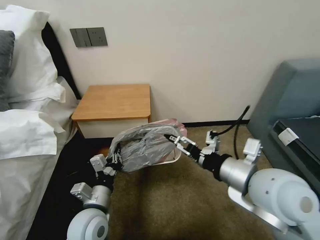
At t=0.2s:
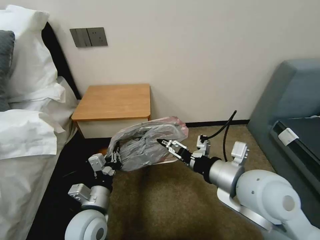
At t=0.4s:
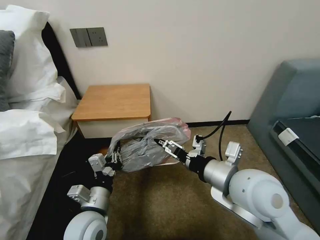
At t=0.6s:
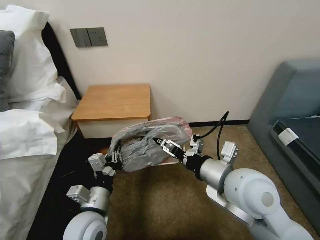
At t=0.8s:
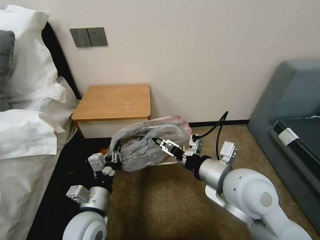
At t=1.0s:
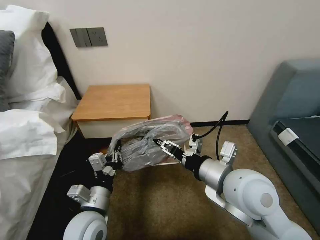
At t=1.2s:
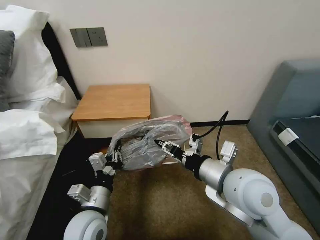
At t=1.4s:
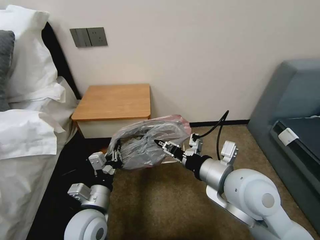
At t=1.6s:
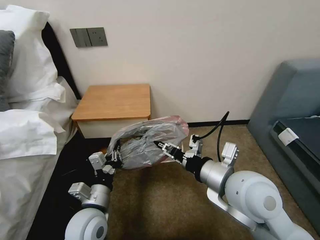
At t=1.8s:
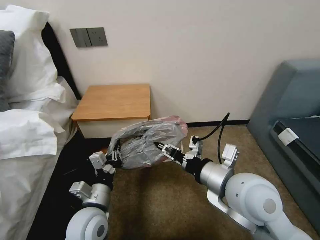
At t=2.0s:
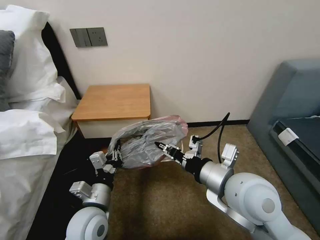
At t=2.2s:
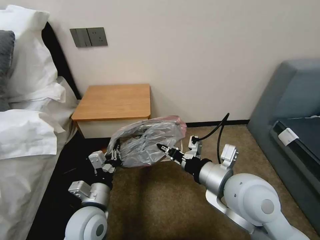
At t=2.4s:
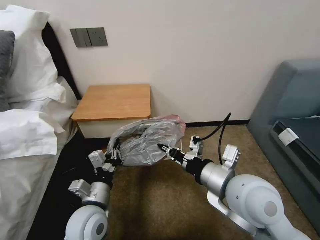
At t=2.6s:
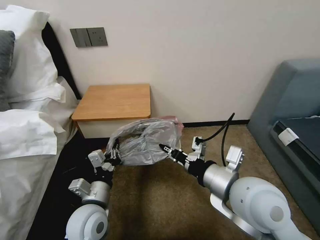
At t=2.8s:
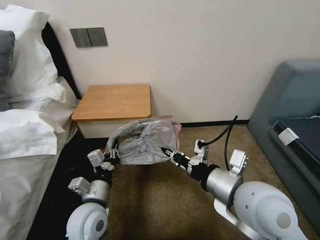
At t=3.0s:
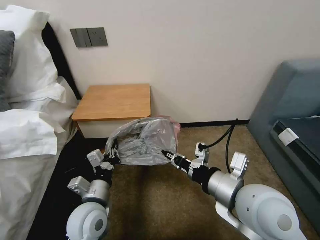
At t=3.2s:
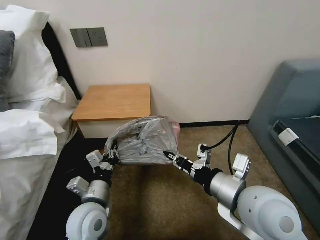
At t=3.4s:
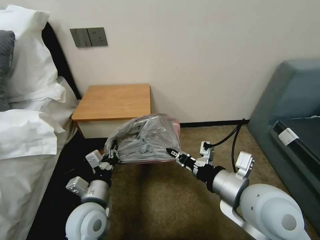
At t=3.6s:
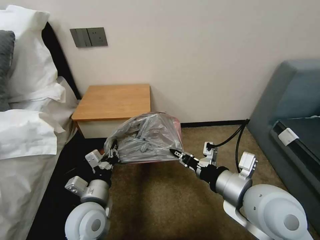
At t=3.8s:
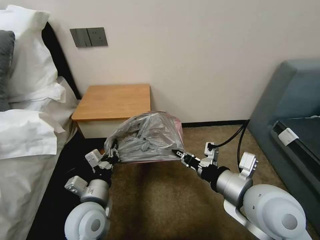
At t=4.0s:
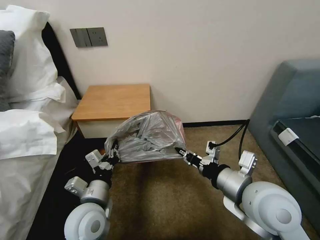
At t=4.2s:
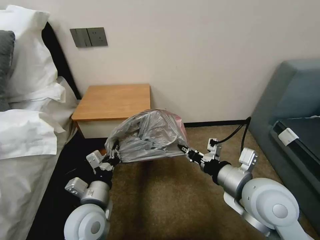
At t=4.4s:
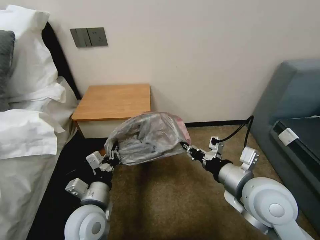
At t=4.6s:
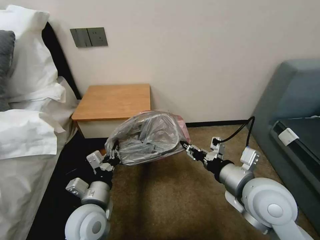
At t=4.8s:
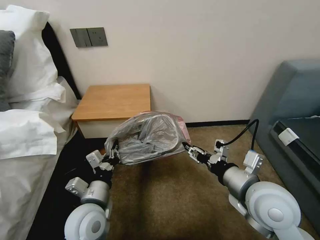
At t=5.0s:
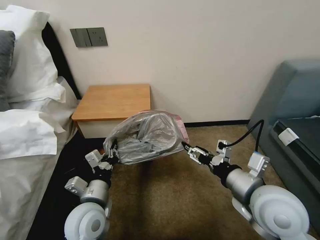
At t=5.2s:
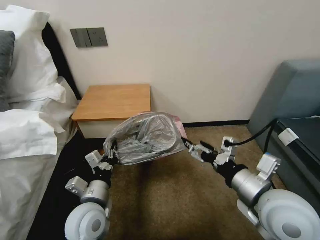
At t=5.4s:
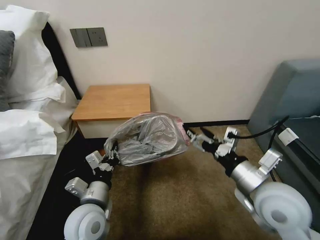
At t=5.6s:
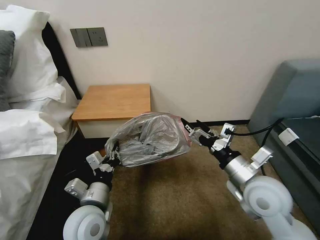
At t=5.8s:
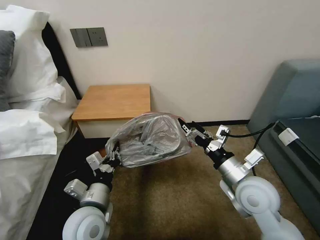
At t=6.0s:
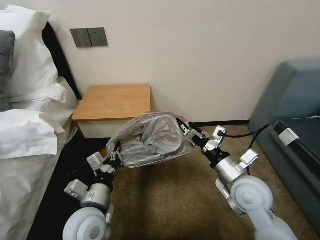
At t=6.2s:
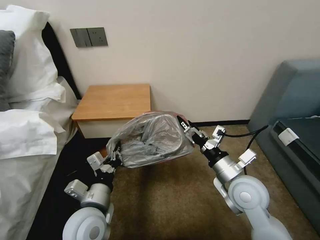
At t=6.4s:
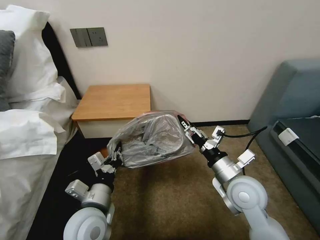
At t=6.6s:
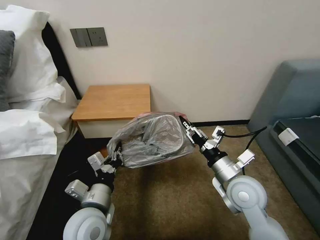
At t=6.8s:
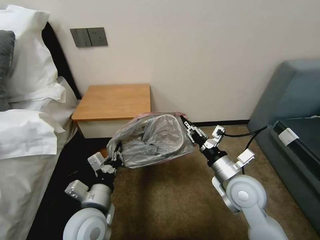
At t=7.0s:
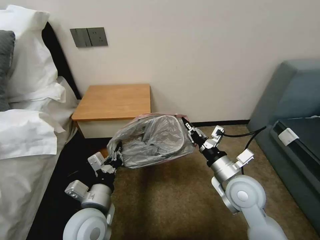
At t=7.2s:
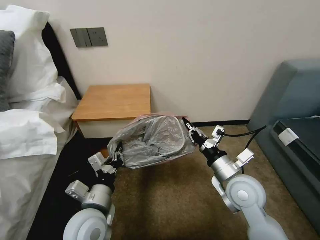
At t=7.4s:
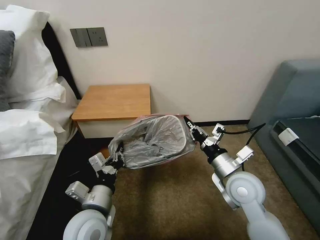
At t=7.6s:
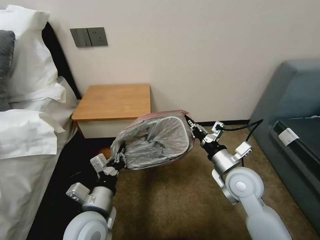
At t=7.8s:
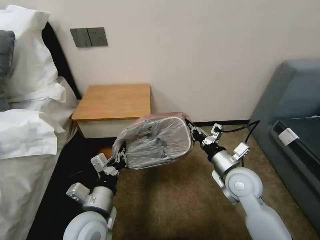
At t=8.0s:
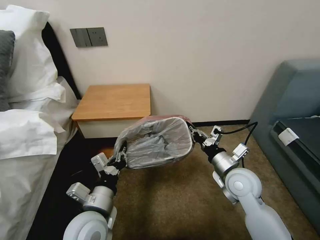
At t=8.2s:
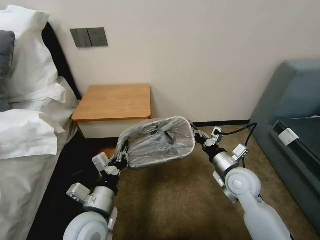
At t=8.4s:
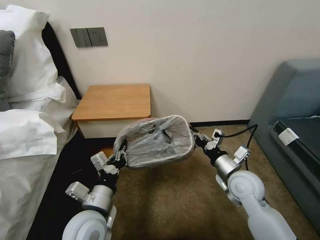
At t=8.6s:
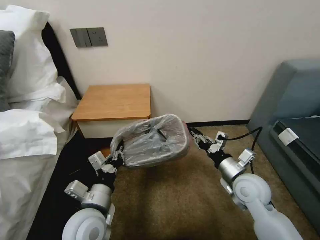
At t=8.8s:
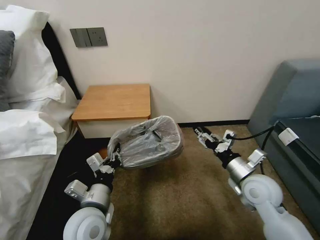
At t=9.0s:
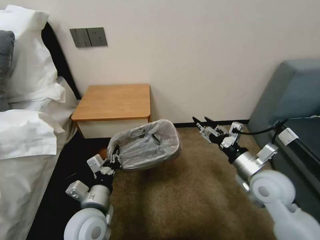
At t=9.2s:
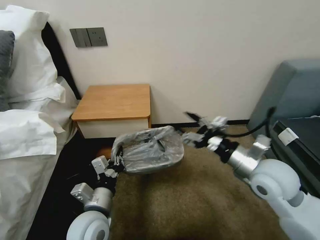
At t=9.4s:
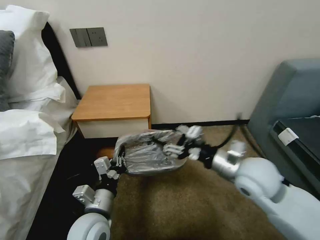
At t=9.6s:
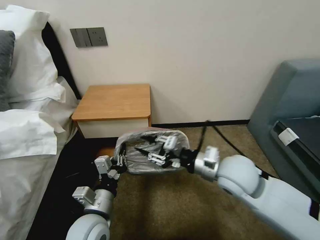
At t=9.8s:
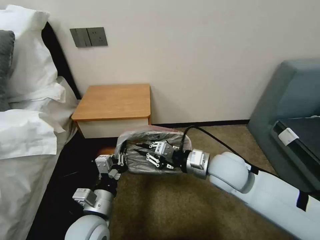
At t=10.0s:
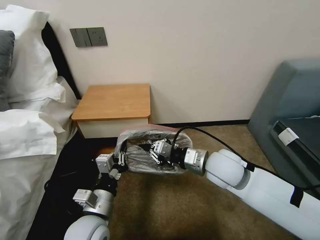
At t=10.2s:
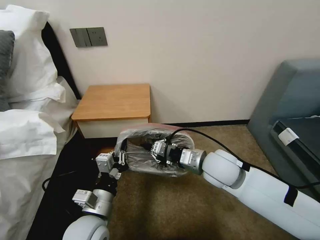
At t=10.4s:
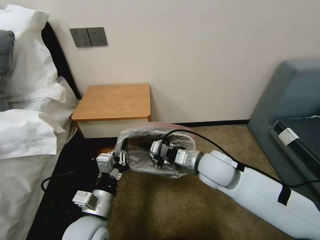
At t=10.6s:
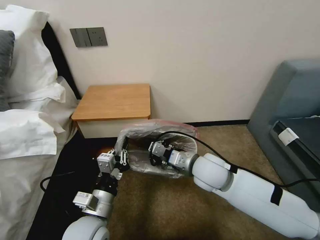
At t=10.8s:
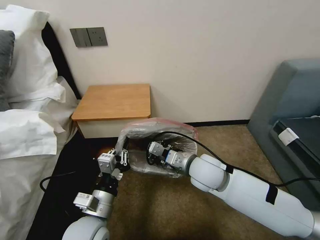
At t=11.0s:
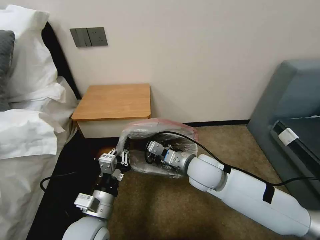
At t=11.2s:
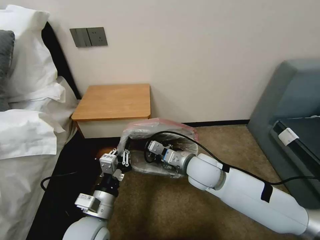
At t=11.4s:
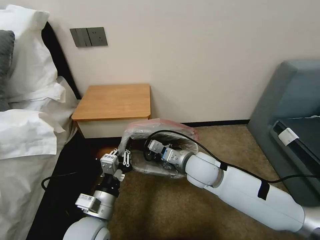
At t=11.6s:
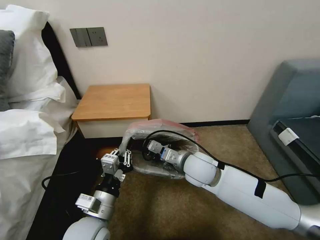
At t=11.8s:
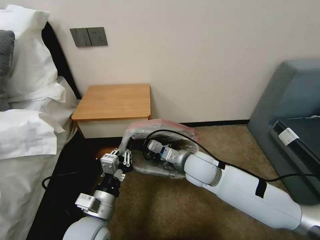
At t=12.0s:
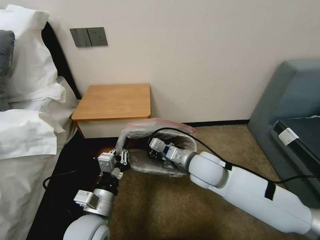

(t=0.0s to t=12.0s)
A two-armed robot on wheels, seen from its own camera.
Task of the whole recording: Pick up the garbage bag from the table and place it over the trash can.
t=0.0s - t=1.6s: The right gripper closes.
t=1.6s - t=3.0s: The right gripper closes up.
t=3.0s - t=4.4s: The grippers stay close to where they were, moving slightly.
t=4.4s - t=6.0s: The right gripper moves downward, some 5 cm, and opens up.
t=6.0s - t=7.6s: The right gripper closes its fingers.
t=7.6s - t=9.0s: The right gripper heads to the right, covering roughly 5 cm, and opens its fingers.
t=9.0s - t=10.4s: The right gripper travels to the left by about 15 cm, and closes its fingers.
t=10.4s - t=12.0s: The grippers stay close to where they were, moving slightly.

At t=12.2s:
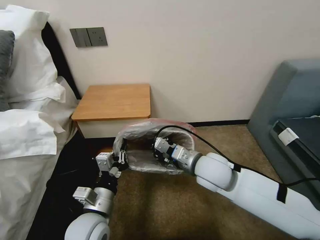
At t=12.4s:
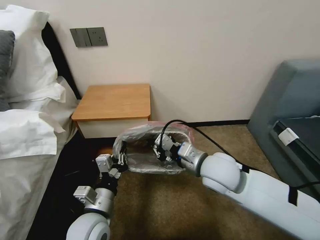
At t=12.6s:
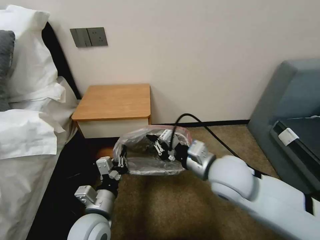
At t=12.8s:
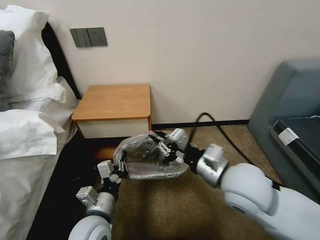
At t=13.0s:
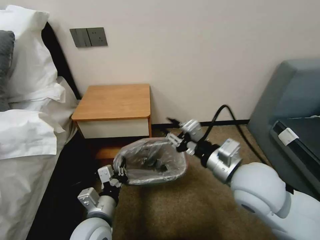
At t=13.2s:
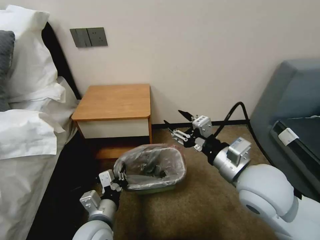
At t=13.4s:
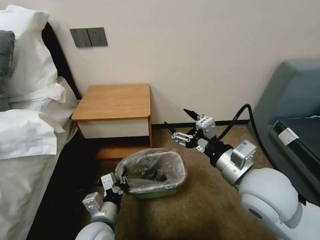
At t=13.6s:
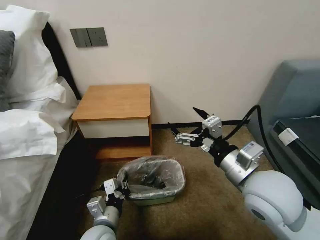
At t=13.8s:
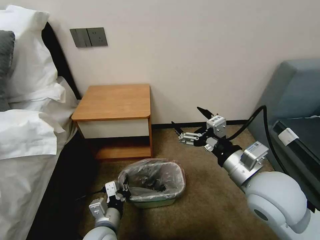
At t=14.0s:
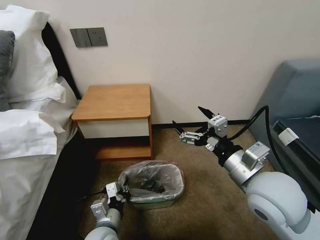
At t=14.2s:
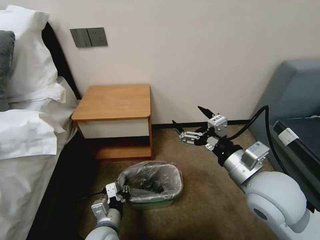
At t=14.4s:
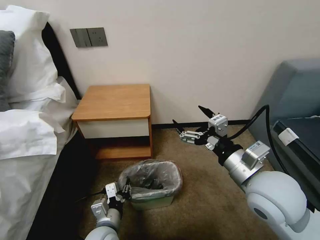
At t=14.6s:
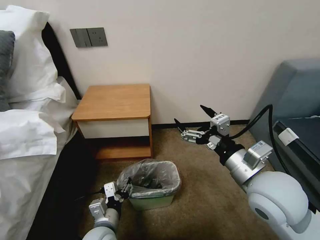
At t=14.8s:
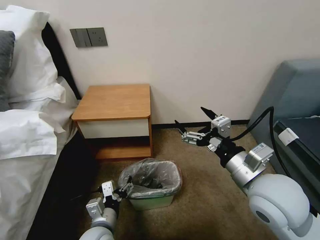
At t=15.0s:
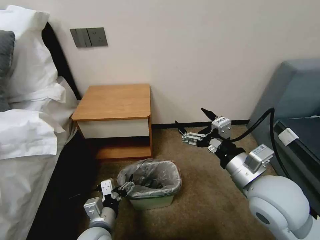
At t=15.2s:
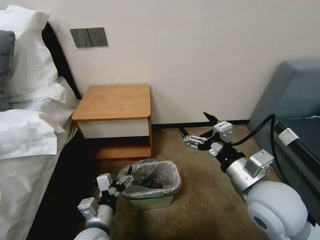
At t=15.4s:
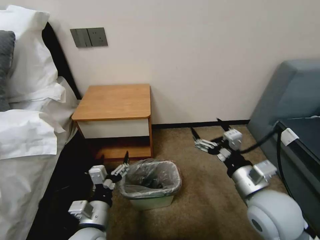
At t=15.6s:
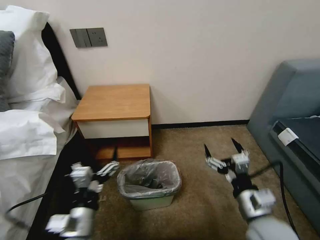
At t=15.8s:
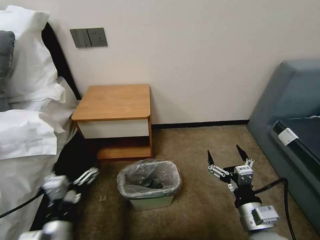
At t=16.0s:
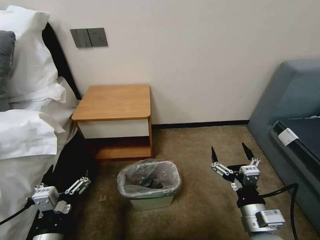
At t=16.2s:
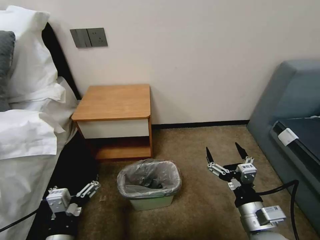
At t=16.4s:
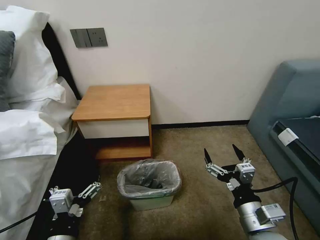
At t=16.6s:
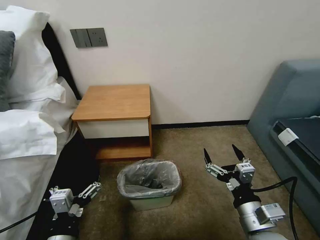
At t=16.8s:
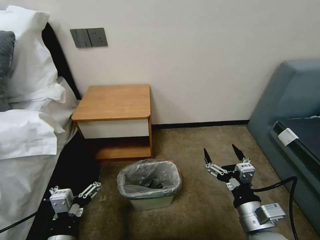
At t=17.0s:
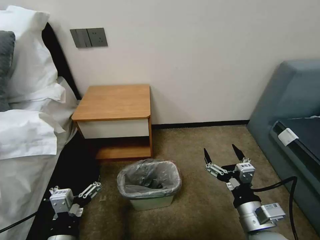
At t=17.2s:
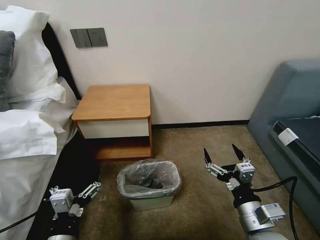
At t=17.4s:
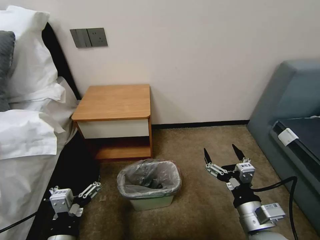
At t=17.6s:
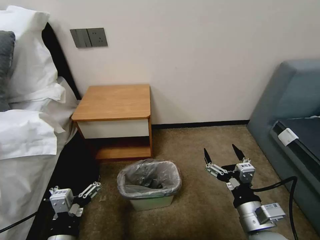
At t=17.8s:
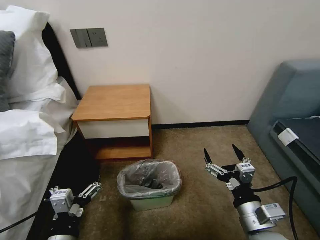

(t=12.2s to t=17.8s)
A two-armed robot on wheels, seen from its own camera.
Task of the whole recording: Pick up the garbage bag from the table and place it over the trash can.
t=12.2s - t=13.6s: The right gripper travels backward, to the right and upward by some 15 cm, and opens its fingers; the left gripper goes roughly 5 cm downward.
t=13.6s - t=15.0s: The left gripper opens its fingers.
t=15.0s - t=16.4s: The left gripper heads backward and upward, covering approximately 10 cm. Meanwhile the right gripper heads downward and backward, covering roughly 15 cm.
t=16.4s - t=17.8s: Both grippers stay about where they are.
